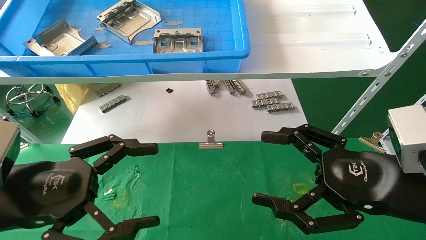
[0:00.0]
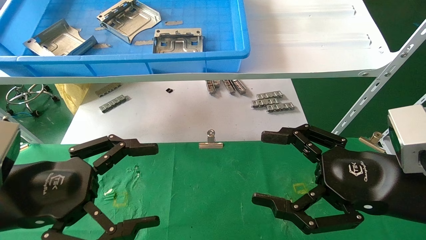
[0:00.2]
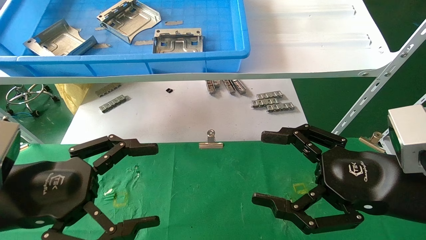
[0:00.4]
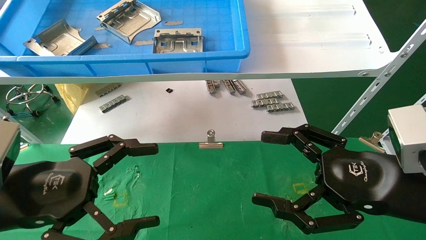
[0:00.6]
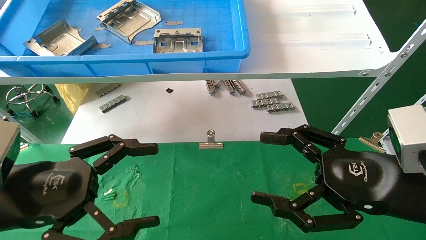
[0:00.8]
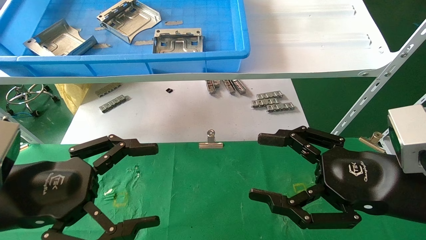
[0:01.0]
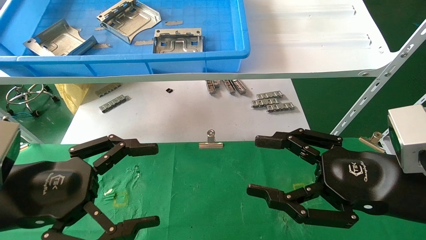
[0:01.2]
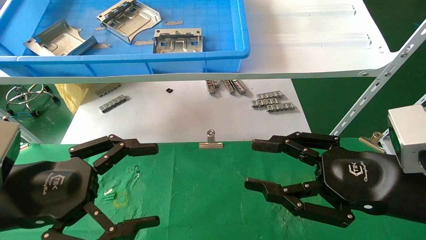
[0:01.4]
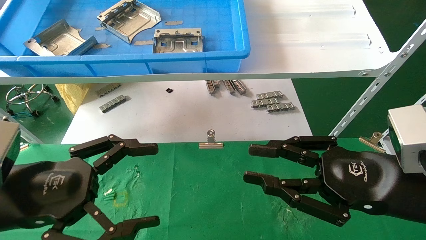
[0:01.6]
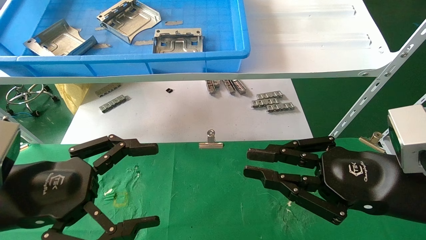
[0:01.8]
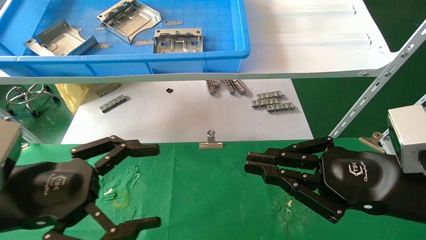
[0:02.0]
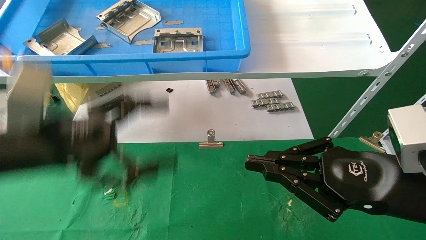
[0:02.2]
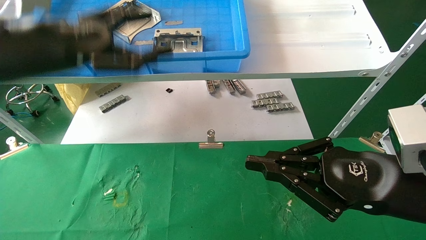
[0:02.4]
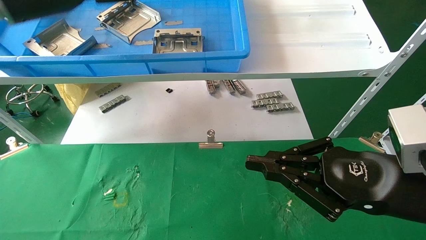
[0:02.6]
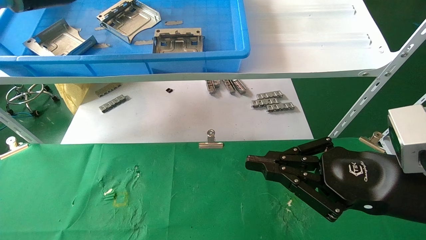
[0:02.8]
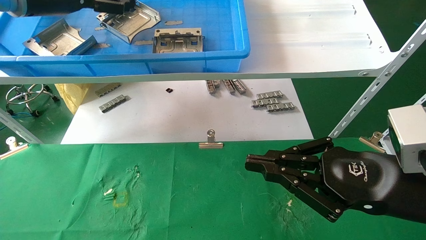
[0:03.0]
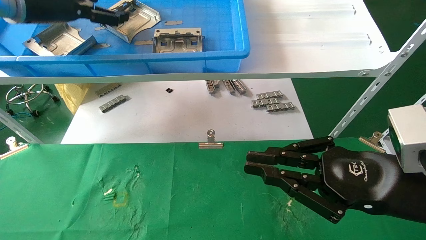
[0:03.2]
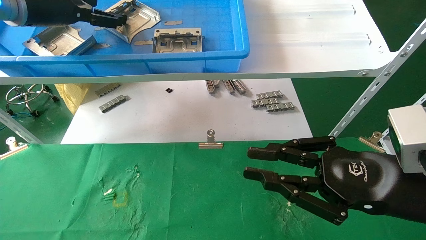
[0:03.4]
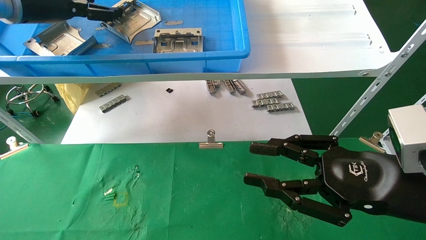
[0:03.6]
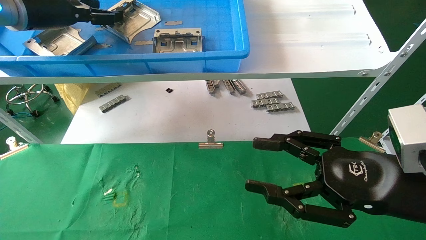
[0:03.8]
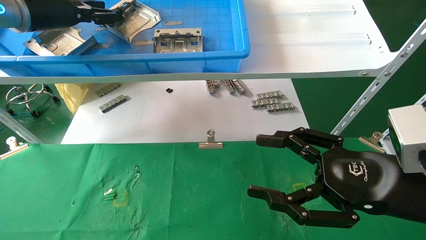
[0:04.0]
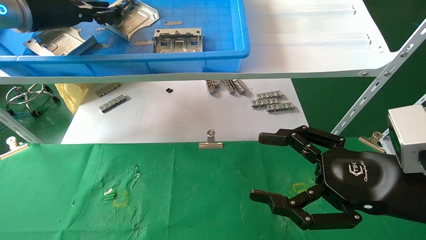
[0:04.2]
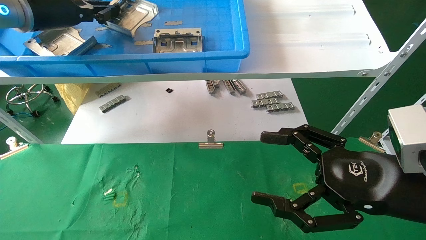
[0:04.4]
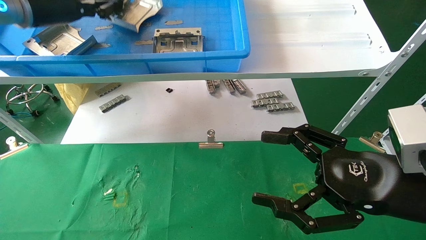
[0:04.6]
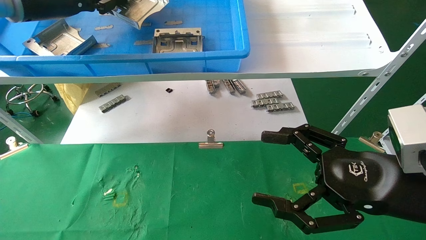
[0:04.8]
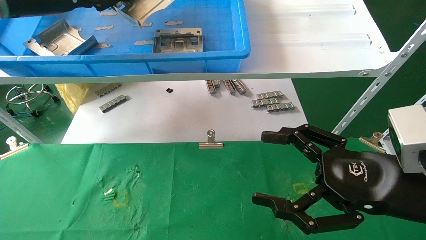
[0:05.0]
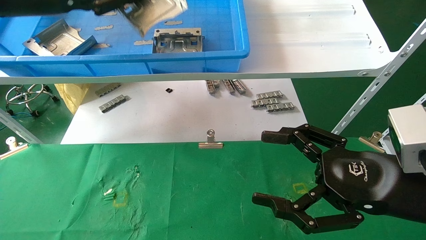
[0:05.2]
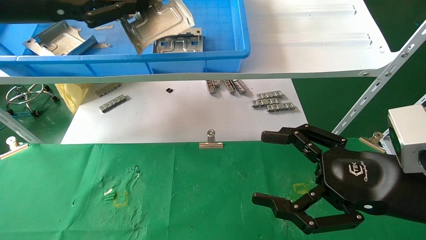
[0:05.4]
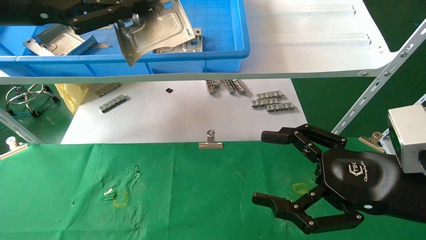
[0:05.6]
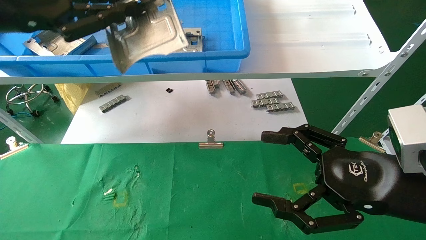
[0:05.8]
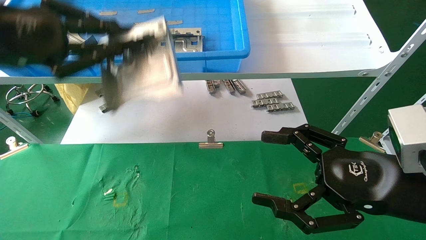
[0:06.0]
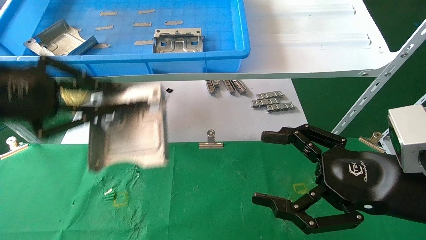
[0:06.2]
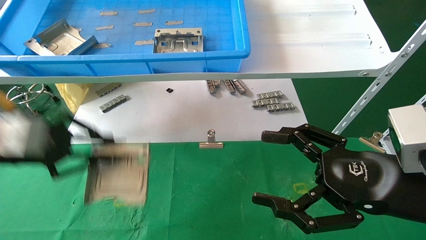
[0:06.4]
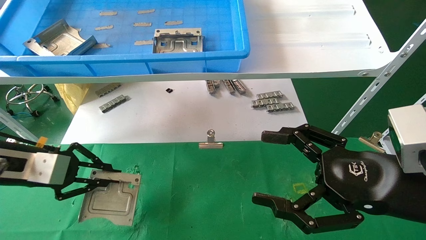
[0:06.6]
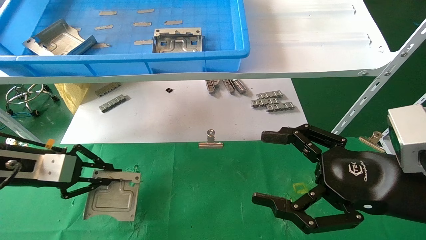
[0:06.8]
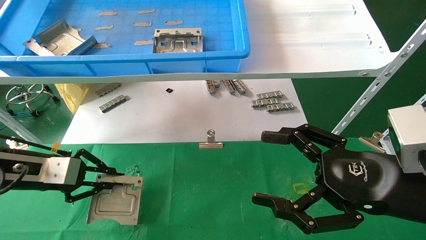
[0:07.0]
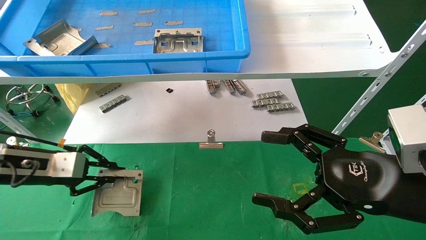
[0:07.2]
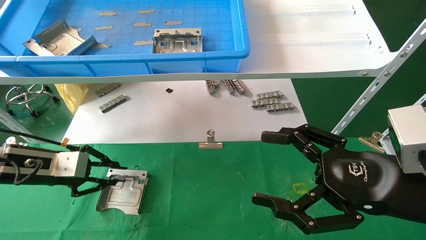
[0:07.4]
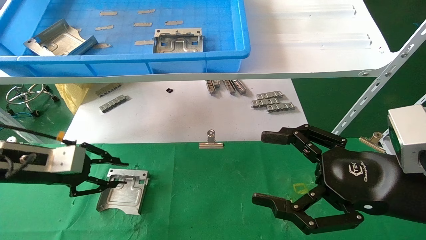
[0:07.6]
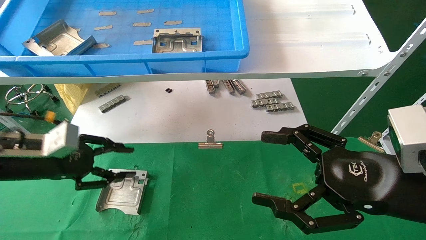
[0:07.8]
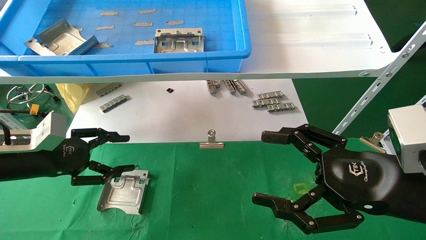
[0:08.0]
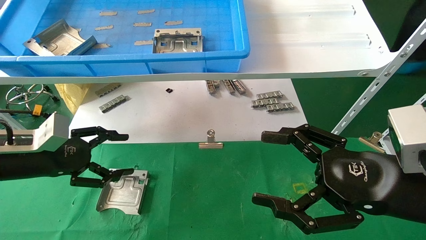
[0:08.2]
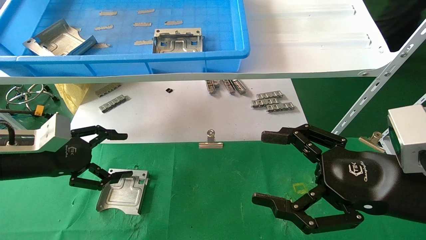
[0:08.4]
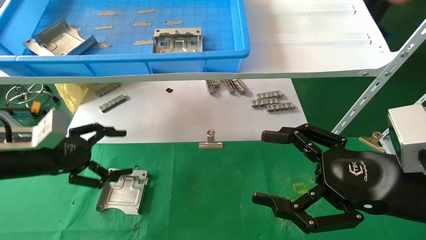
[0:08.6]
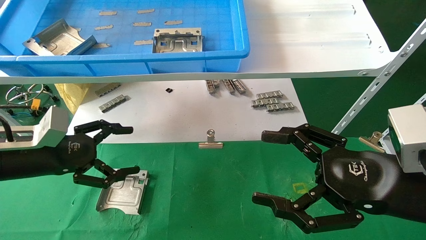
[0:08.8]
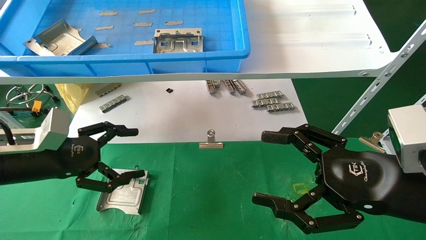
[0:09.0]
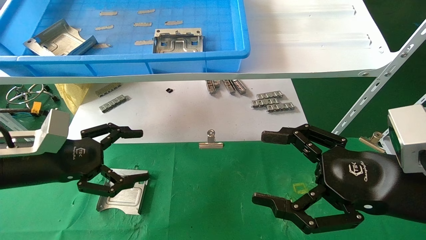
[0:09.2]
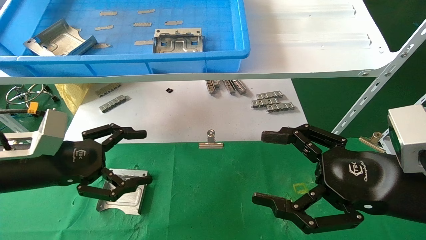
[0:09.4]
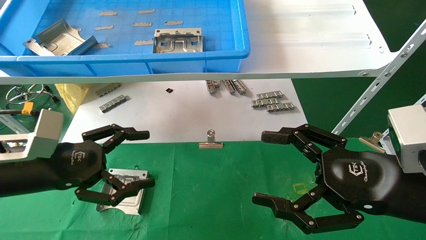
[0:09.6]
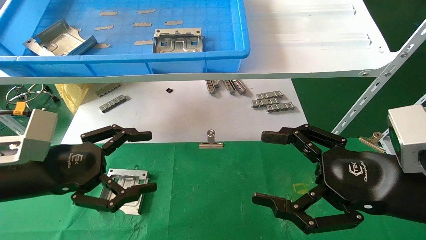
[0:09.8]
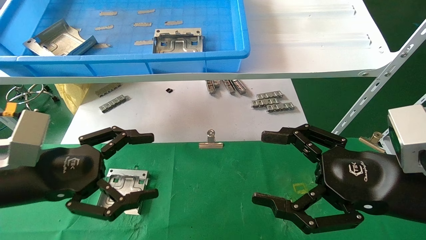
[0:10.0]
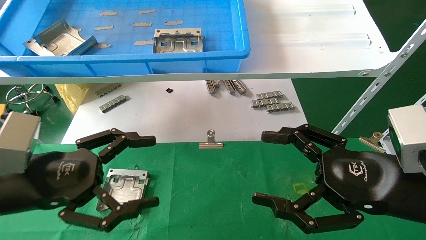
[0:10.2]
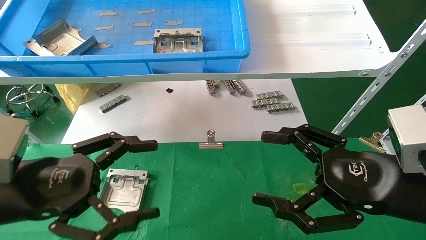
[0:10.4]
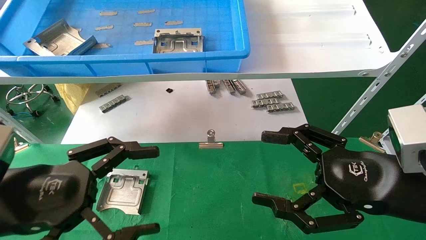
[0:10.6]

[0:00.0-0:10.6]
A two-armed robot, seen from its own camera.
Task of the whole recording: use the mechanical arm to pick up the parts and place them on the table.
Step, 0:02.4 to 0:04.4: Pick up the hard drive bracket from the feeding area.
Step, 0:04.6 to 0:07.6: Place the hard drive bracket into the box.
0:00.0 to 0:01.6: The right gripper closes up.
0:01.6 to 0:03.0: The right gripper closes; the left gripper heads upward and forward, covering some 30 cm.
0:03.0 to 0:04.6: The left gripper closes, while the right gripper opens its fingers.
0:04.6 to 0:06.0: The left gripper travels backward and downward by approximately 15 cm.
0:06.0 to 0:07.6: The left gripper travels downward and forward by about 20 cm.
0:07.6 to 0:09.0: The left gripper opens its fingers.
0:09.0 to 0:10.6: The left gripper is displaced backward and to the right by roughly 10 cm.
